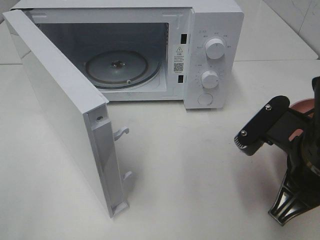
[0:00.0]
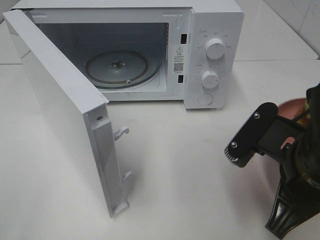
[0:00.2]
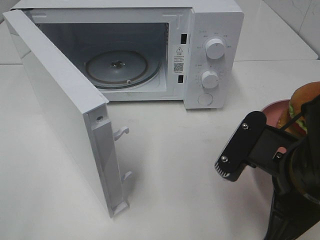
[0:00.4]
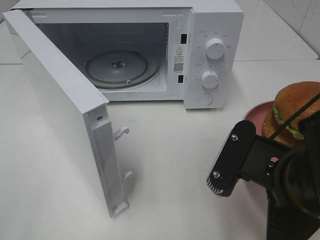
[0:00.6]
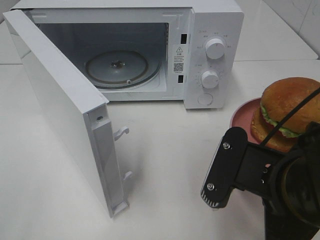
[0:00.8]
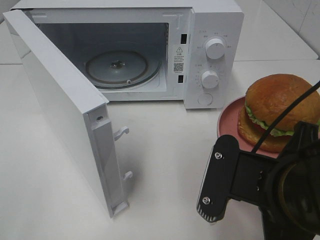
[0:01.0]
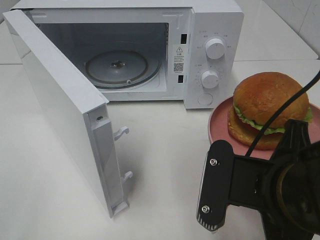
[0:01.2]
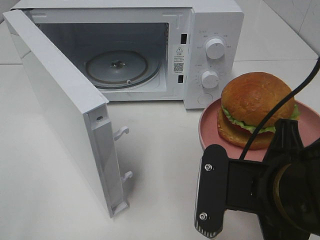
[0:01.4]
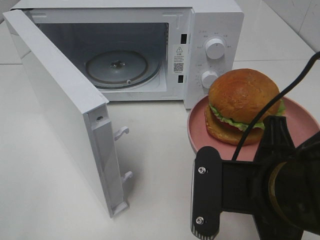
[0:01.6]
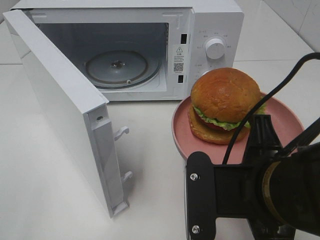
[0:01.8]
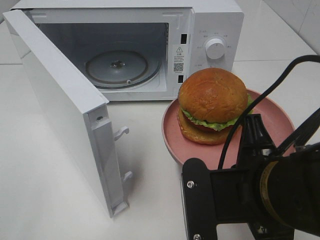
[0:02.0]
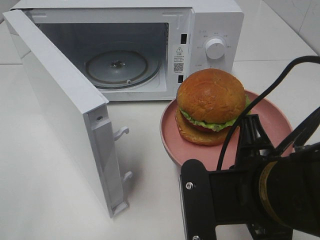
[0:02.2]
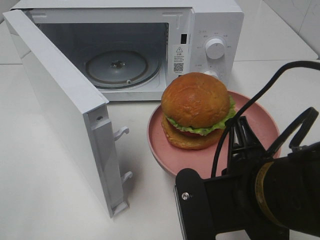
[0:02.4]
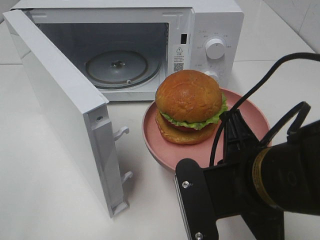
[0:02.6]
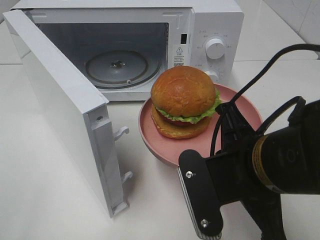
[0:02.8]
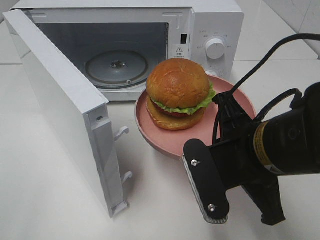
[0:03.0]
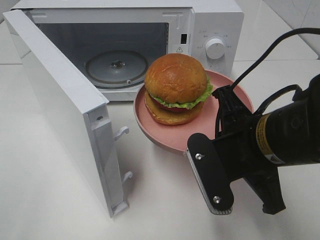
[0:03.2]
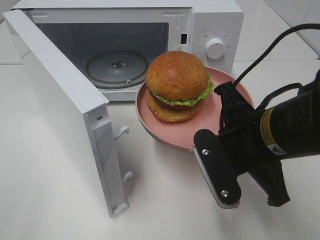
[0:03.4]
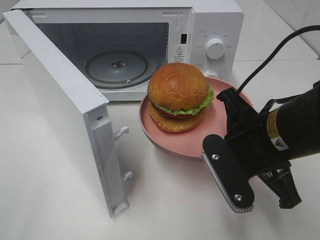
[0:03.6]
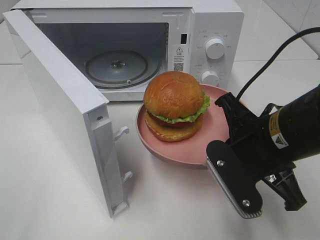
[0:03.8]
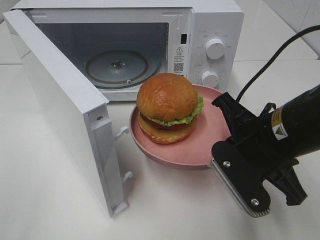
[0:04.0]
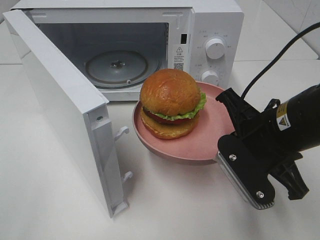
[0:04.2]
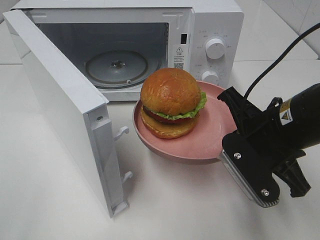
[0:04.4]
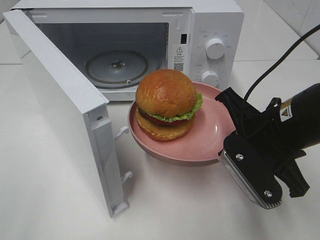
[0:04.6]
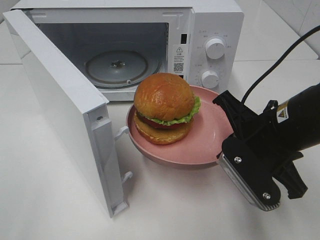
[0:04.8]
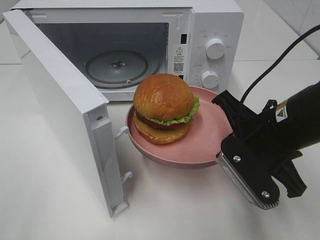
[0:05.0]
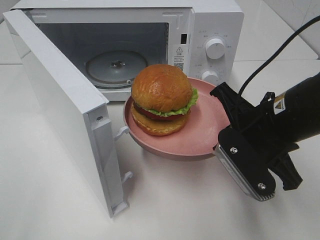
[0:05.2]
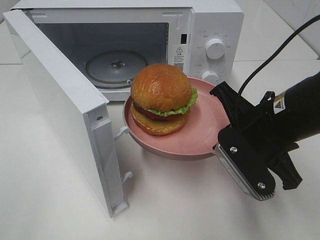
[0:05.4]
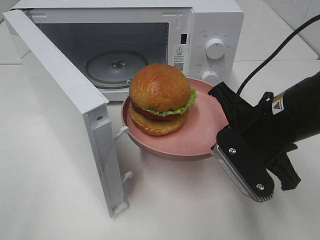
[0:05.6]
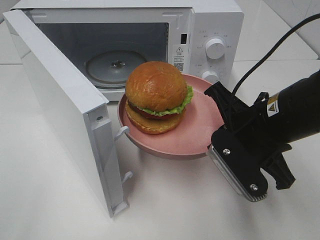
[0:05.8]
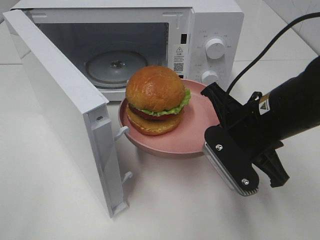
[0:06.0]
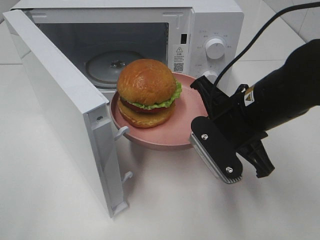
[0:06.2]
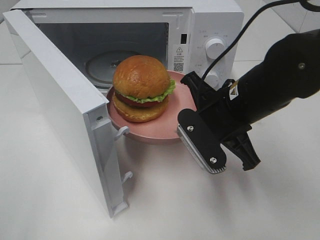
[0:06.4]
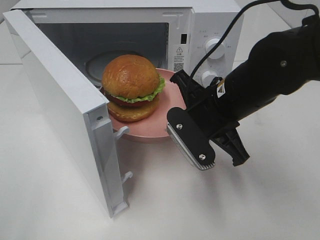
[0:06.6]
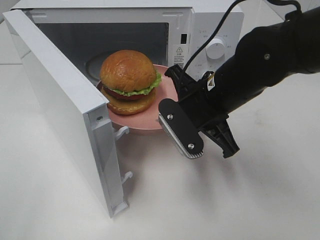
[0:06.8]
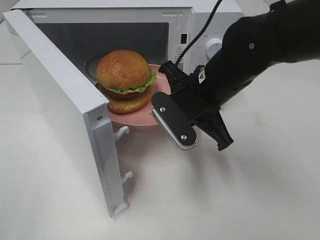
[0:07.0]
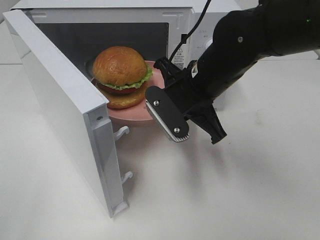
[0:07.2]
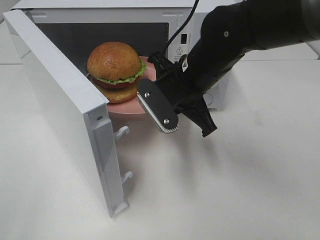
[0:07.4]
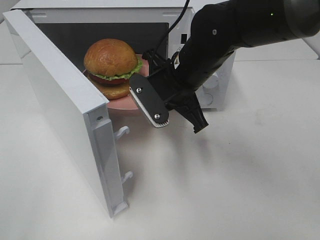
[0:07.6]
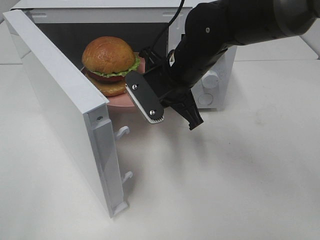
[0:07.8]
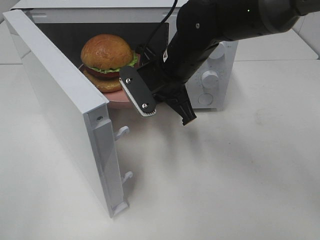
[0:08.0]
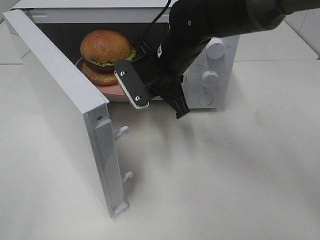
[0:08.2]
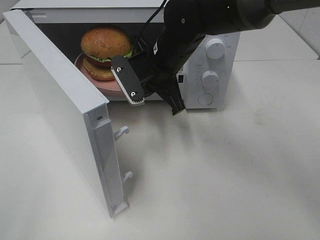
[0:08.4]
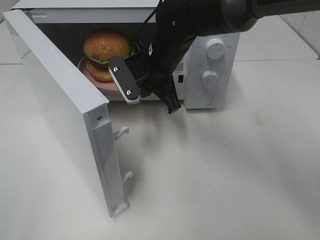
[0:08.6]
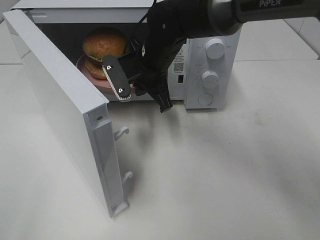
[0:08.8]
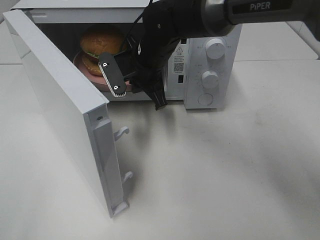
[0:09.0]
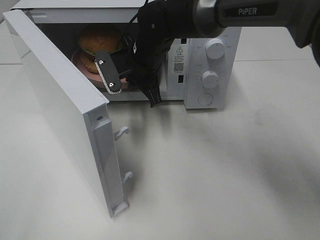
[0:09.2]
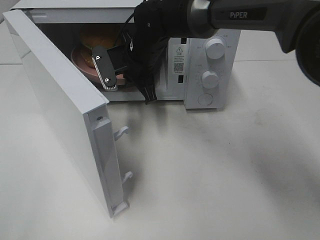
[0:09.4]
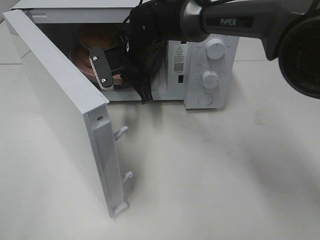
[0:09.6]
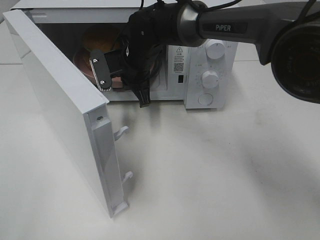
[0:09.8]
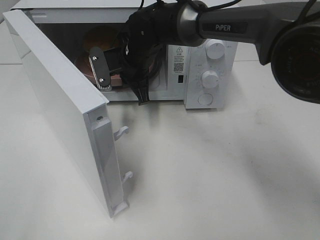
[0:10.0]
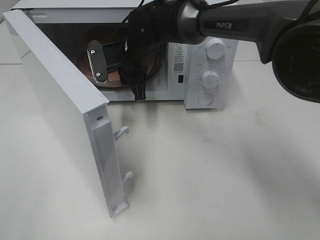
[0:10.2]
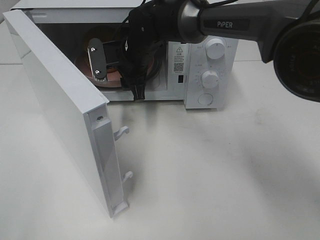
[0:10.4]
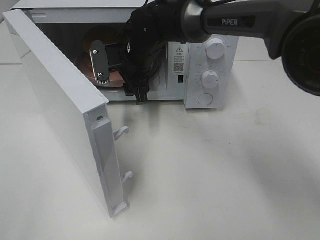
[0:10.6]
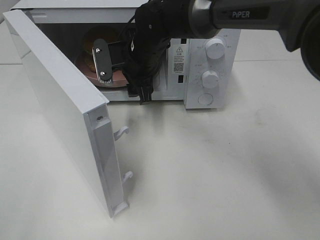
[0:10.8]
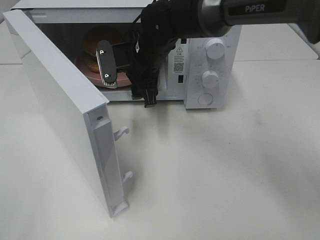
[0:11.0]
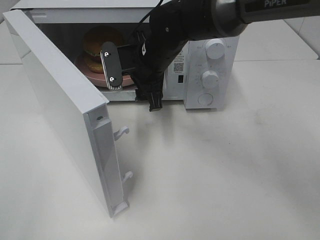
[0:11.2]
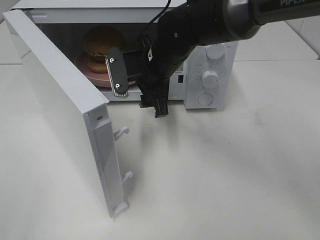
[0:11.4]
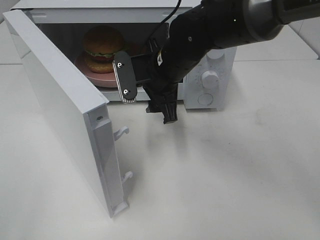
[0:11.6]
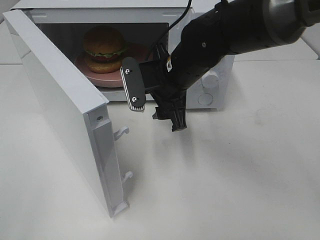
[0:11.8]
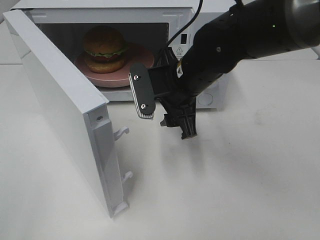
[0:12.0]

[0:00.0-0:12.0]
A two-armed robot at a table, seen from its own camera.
Task of the whole recording: Heat the burger.
Step, 0:00.0 to 0:10.2: Right hand: place the plate in the microwave.
0:00.0 to 0:01.6: The right gripper is displaced to the left by roughly 5 cm.
0:01.6 to 0:03.0: The right gripper travels forward by about 5 cm.
0:03.0 to 0:04.4: The right gripper moves approximately 5 cm.
0:04.4 to 0:06.0: The grippers stay close to where they were, moving slightly.
0:06.0 to 0:07.6: The right gripper shifts approximately 15 cm forward and to the left.
0:07.6 to 0:09.0: The right gripper goes some 10 cm forward and to the left.
0:09.0 to 0:10.4: The right gripper opens up.
0:10.4 to 0:12.0: The right gripper goes approximately 15 cm backward and to the right.

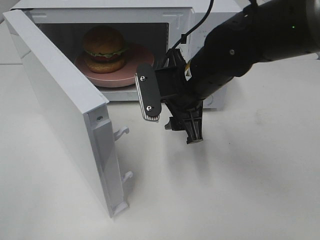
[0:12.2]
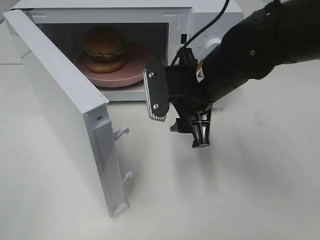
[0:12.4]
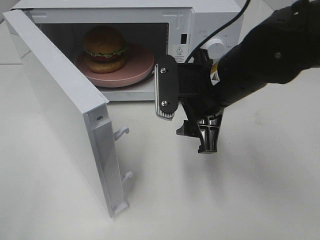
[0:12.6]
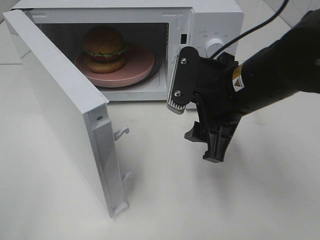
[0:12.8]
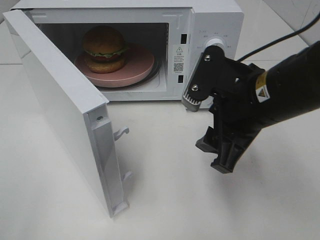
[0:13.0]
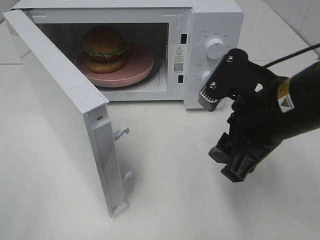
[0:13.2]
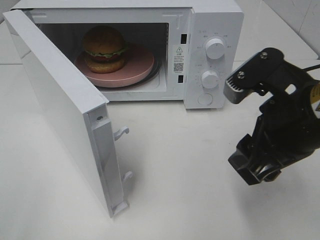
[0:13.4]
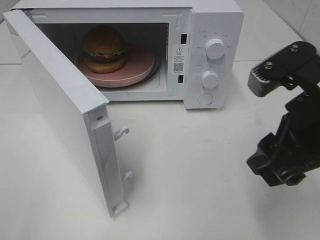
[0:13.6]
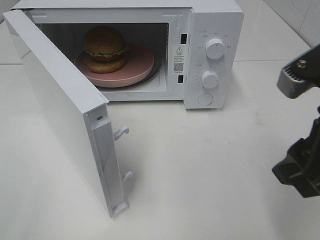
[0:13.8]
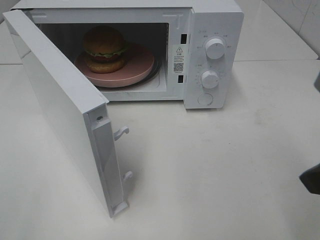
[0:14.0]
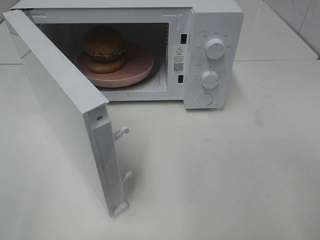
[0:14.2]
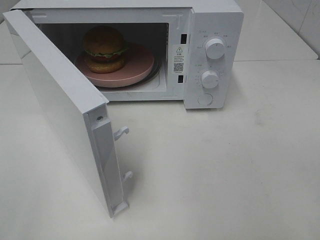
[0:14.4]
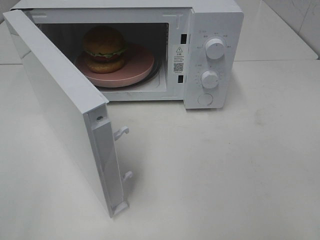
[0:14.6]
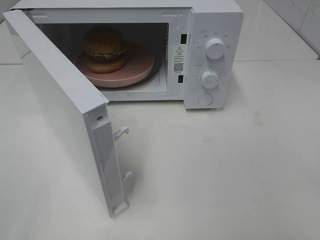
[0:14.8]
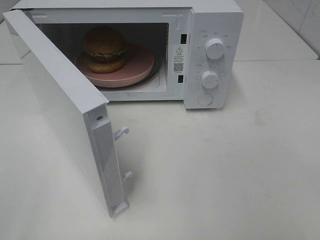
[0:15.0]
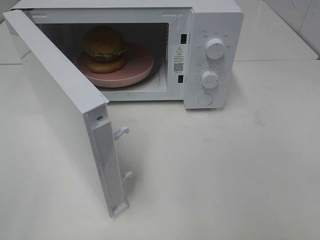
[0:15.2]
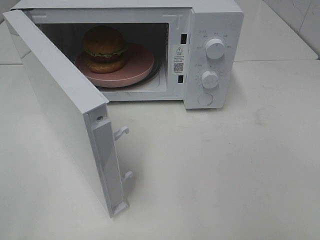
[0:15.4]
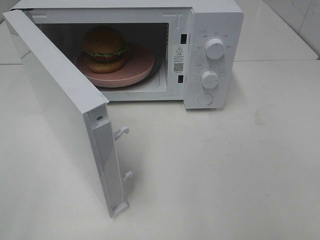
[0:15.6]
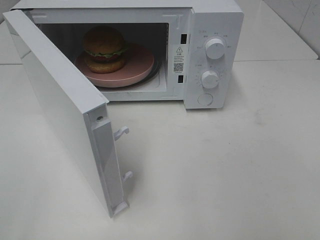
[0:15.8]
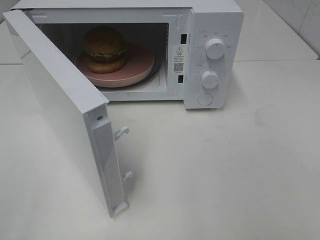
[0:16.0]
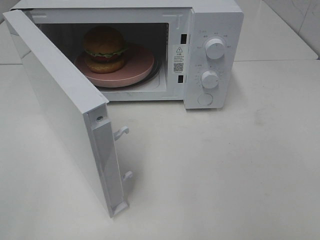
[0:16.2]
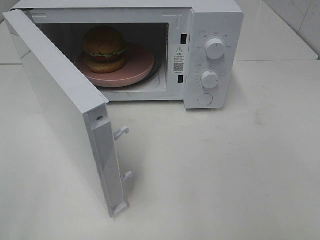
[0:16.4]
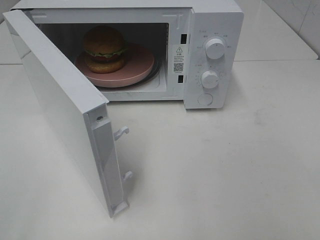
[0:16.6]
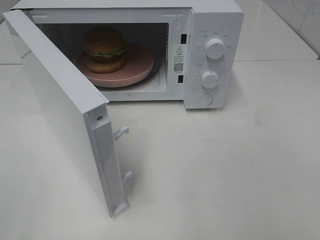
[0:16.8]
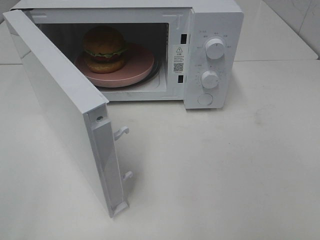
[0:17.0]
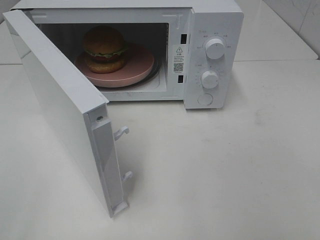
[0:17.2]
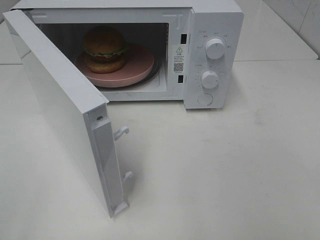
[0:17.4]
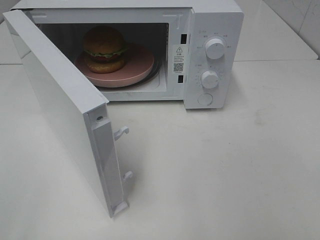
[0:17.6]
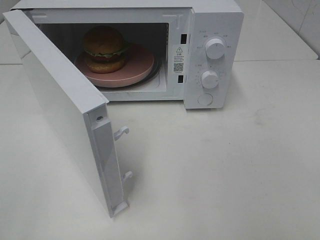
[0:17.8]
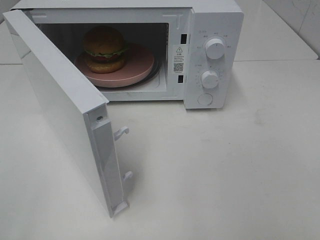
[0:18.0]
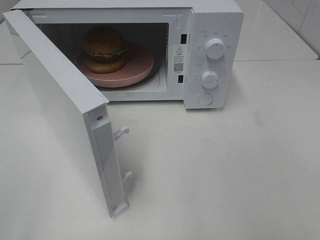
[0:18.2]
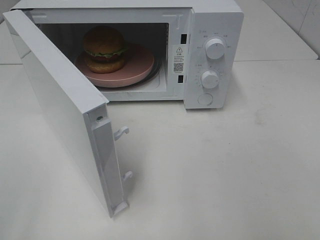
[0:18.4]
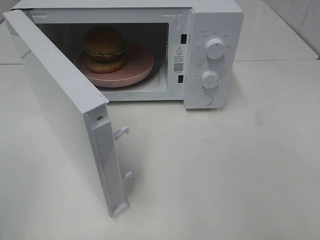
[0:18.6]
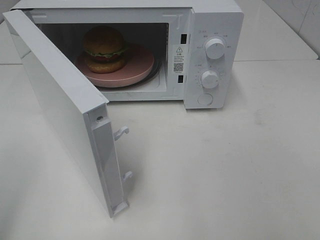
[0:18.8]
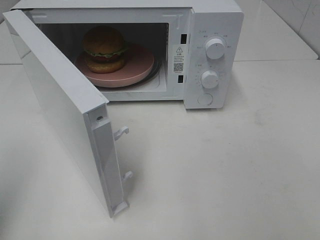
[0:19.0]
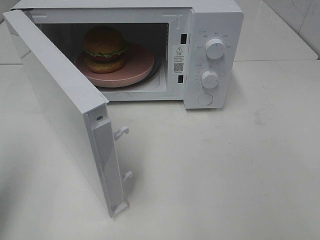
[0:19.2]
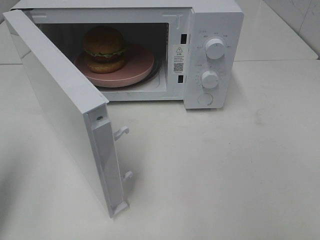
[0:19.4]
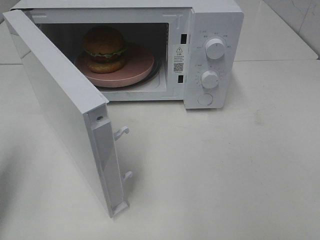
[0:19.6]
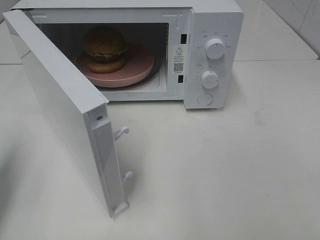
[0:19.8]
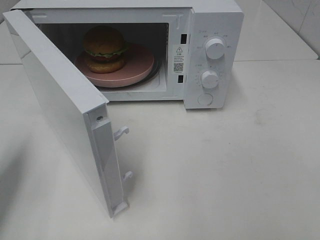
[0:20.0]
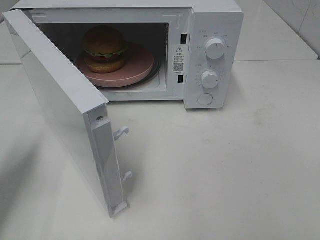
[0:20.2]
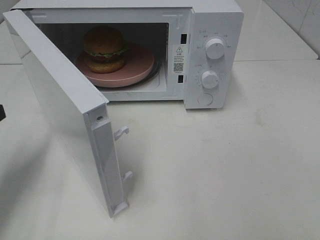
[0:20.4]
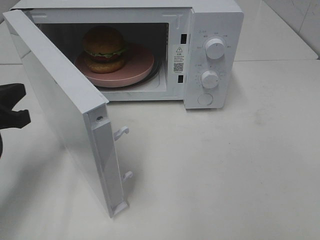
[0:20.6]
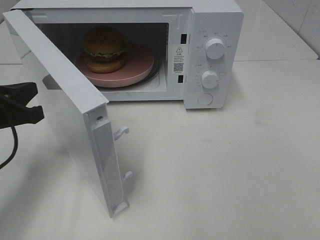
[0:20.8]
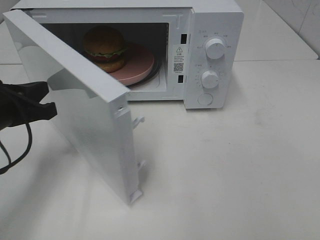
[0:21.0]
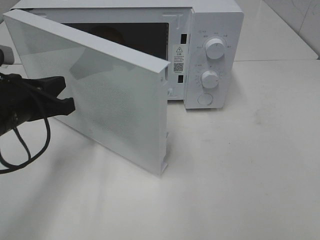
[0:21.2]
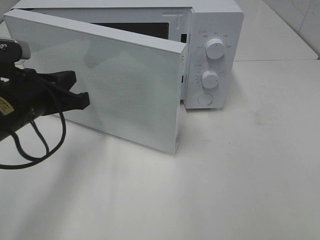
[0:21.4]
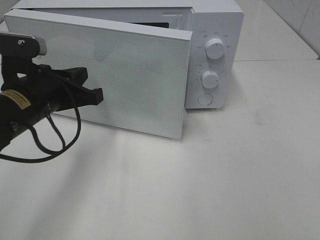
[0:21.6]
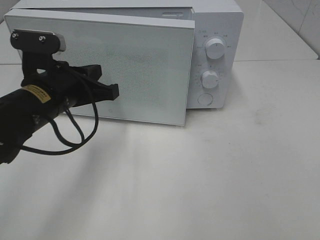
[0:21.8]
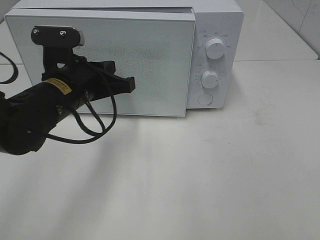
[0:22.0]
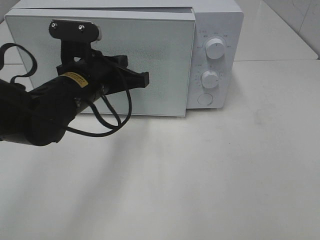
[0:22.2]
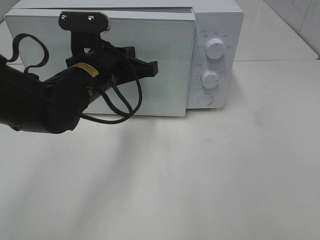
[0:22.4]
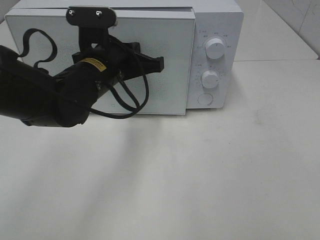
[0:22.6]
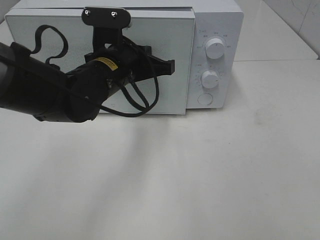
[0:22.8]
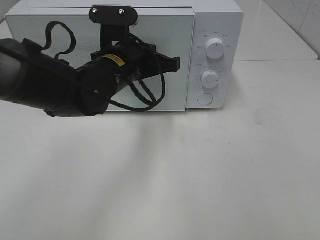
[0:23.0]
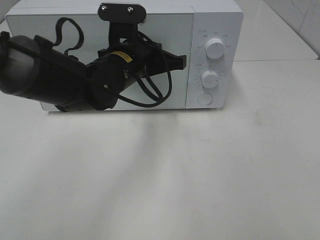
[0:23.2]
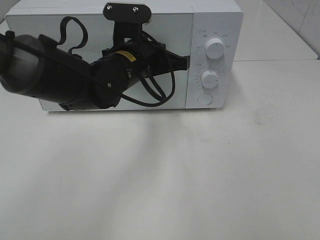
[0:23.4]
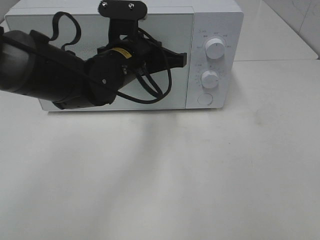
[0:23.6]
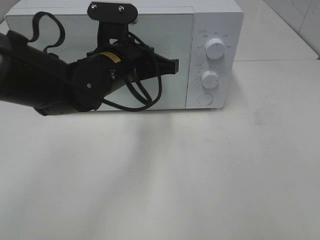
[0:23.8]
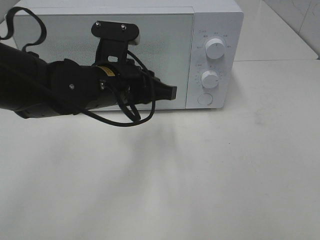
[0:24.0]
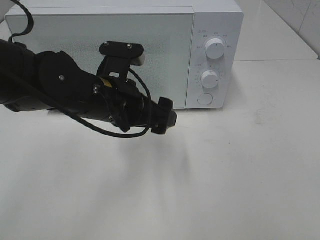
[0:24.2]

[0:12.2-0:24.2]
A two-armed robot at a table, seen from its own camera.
Task of the whole recording: Heat the burger.
Step, 0:12.2 to 0:23.8: Left hand: close the microwave door.
0:12.2 to 0:13.8: The right gripper travels backward, to the right and upward by some 20 cm.
0:13.8 to 0:15.2: The right gripper travels backward and to the right by roughly 15 cm.
0:16.6 to 0:18.2: The two grippers keep their place.
0:18.2 to 0:19.8: The left gripper goes some 20 cm forward, and closes up.
0:19.8 to 0:21.2: The left gripper goes approximately 15 cm to the right, forward and downward.
0:21.2 to 0:22.6: The left gripper travels to the right and forward by about 15 cm.
0:22.6 to 0:24.2: The left gripper shifts about 5 cm backward, and opens.
